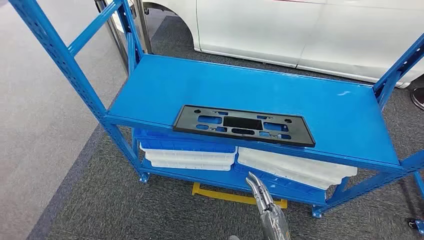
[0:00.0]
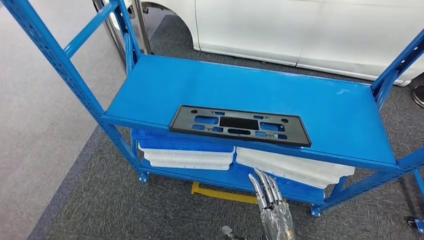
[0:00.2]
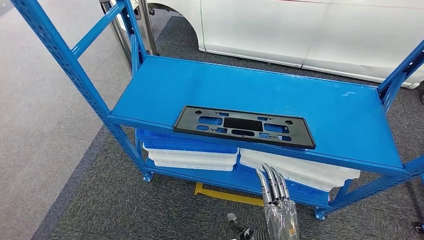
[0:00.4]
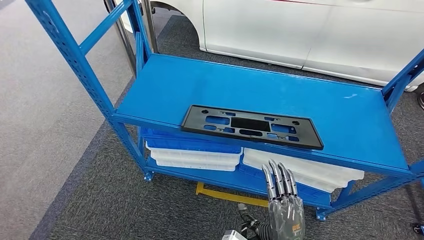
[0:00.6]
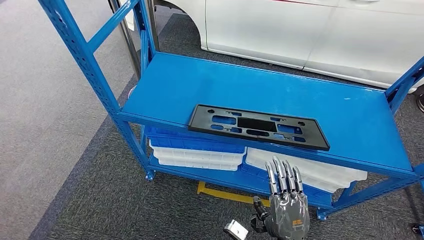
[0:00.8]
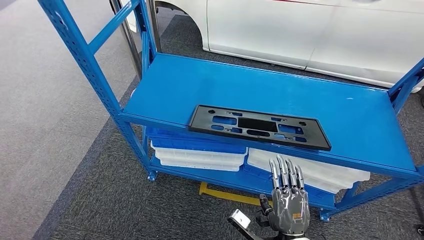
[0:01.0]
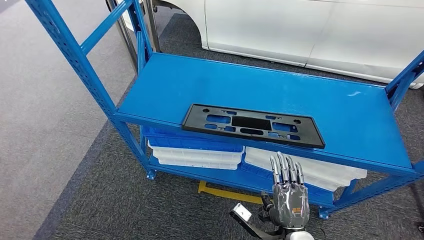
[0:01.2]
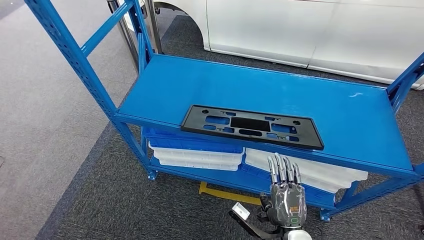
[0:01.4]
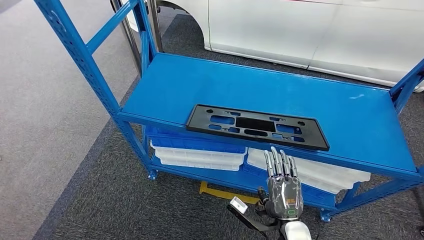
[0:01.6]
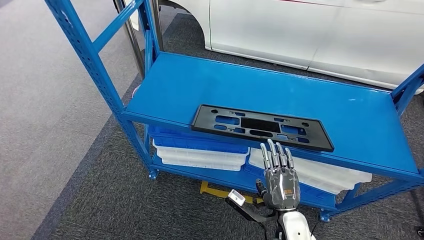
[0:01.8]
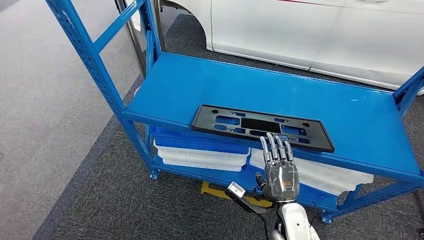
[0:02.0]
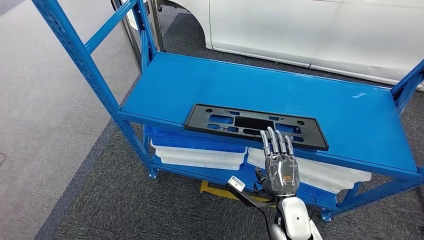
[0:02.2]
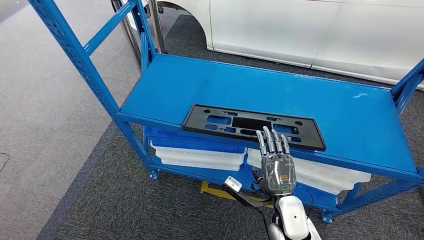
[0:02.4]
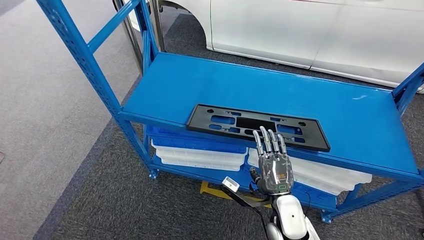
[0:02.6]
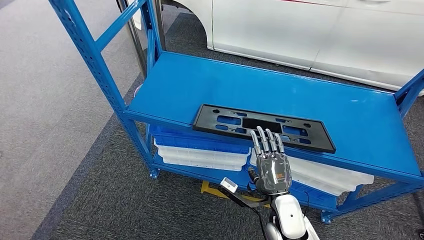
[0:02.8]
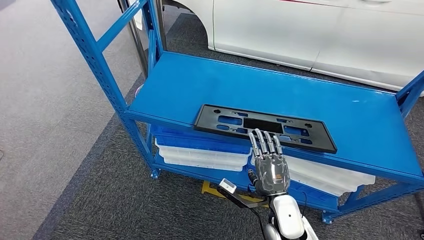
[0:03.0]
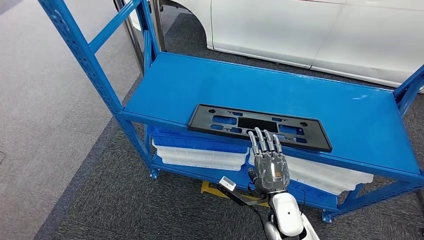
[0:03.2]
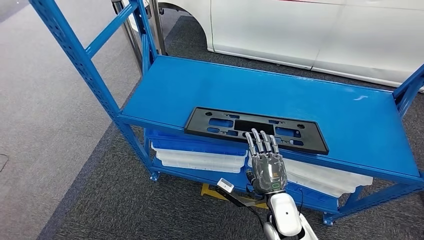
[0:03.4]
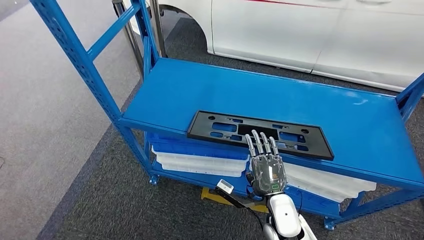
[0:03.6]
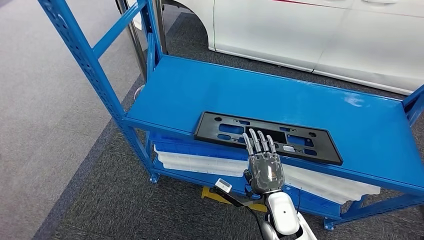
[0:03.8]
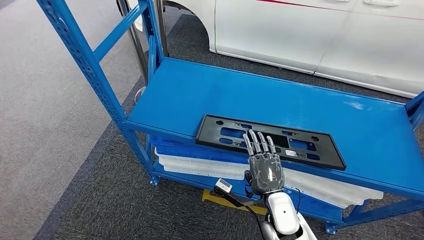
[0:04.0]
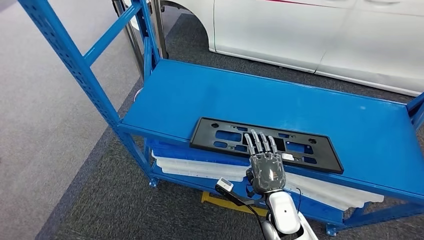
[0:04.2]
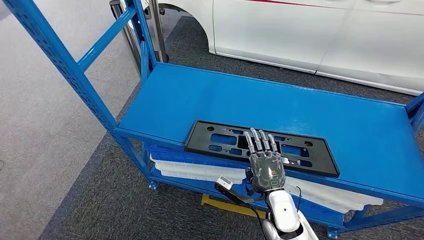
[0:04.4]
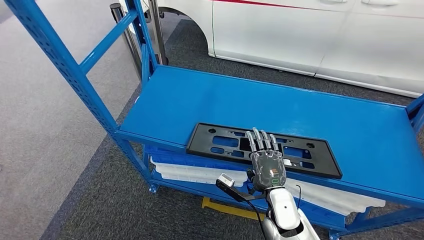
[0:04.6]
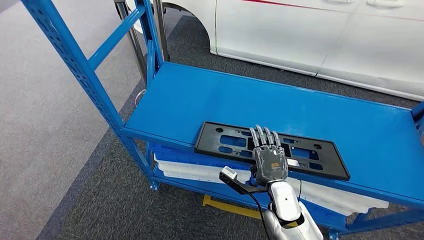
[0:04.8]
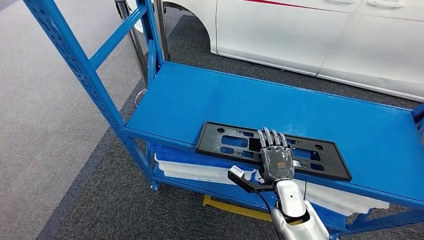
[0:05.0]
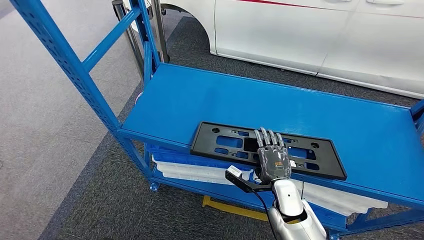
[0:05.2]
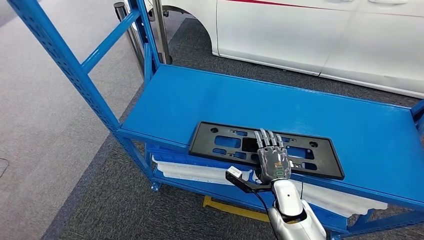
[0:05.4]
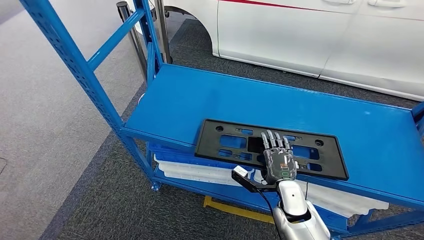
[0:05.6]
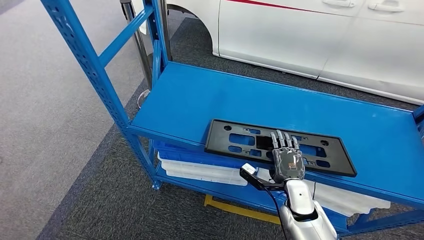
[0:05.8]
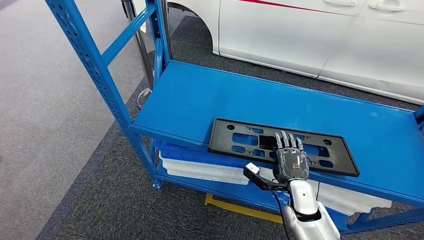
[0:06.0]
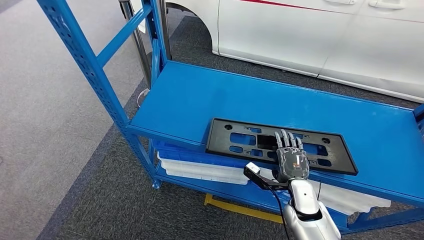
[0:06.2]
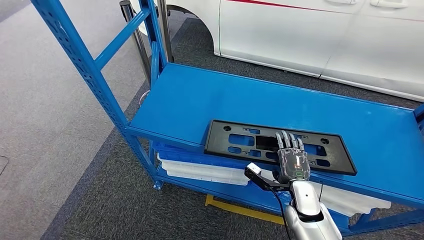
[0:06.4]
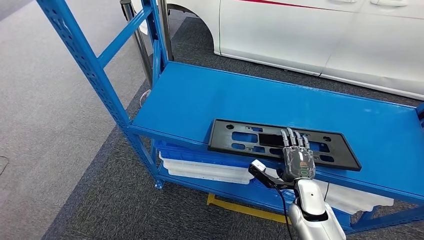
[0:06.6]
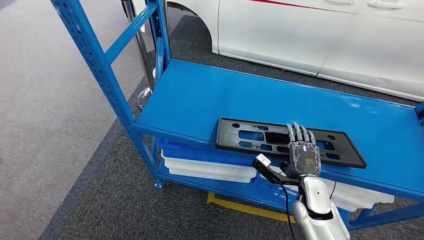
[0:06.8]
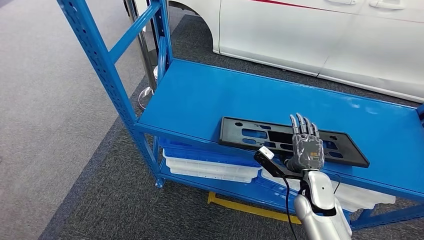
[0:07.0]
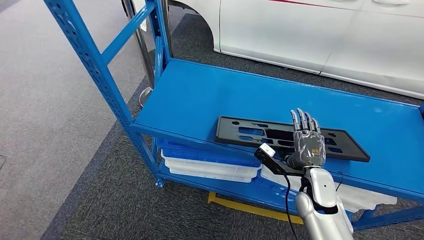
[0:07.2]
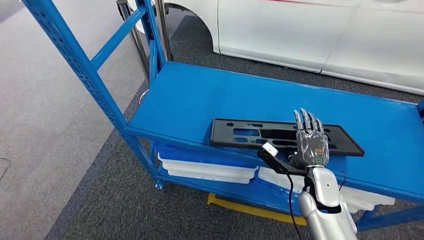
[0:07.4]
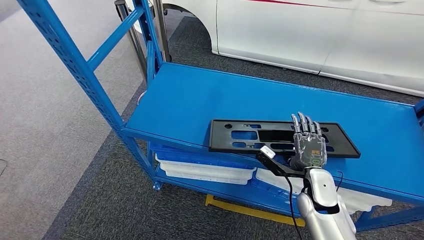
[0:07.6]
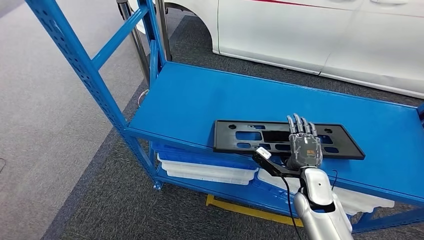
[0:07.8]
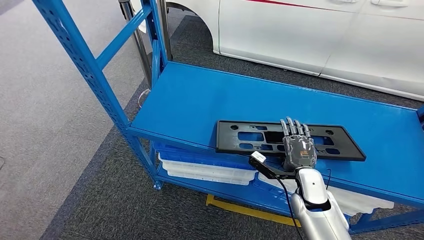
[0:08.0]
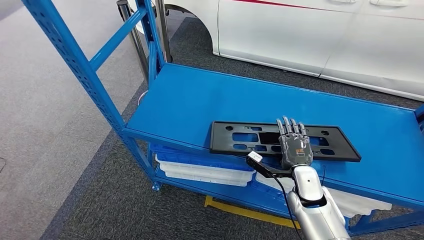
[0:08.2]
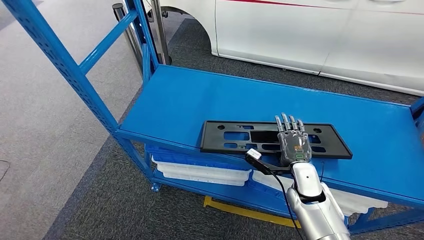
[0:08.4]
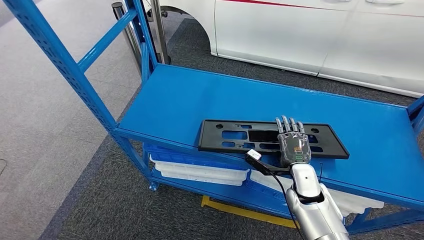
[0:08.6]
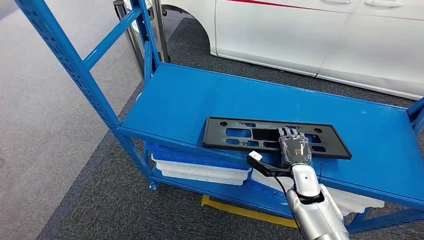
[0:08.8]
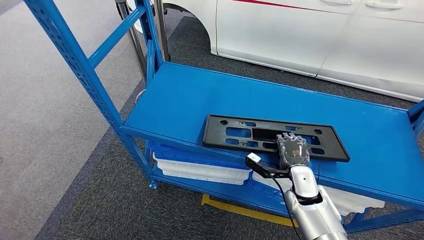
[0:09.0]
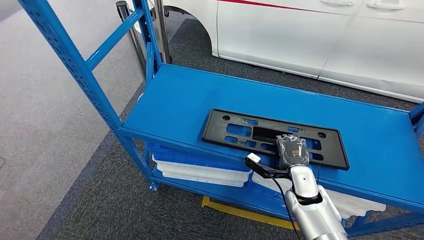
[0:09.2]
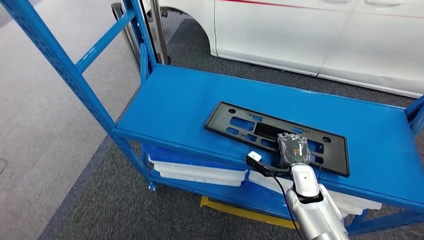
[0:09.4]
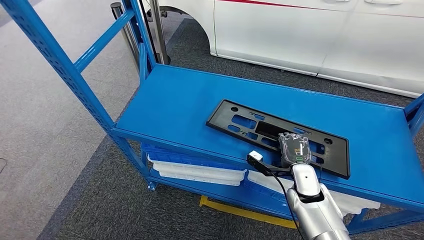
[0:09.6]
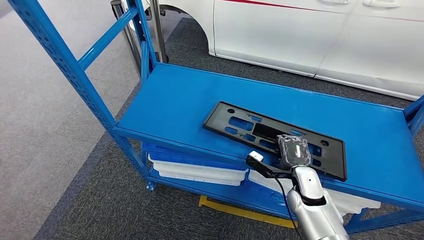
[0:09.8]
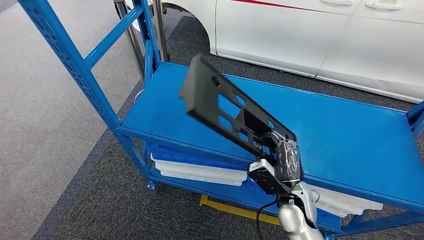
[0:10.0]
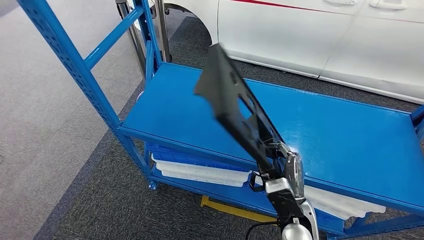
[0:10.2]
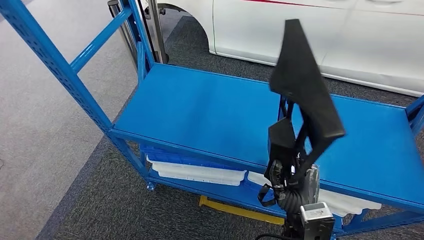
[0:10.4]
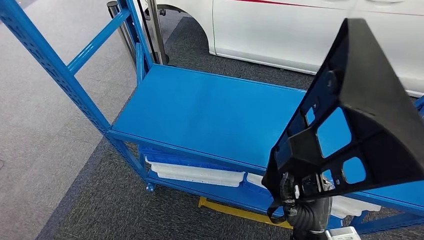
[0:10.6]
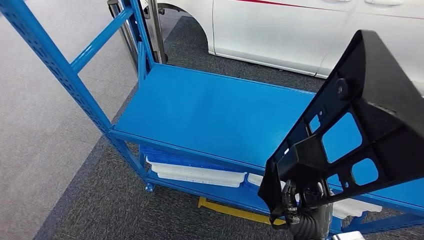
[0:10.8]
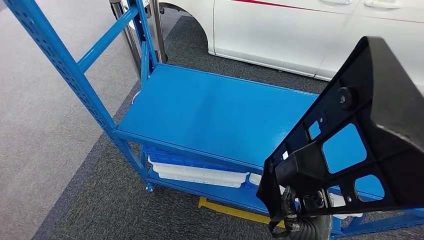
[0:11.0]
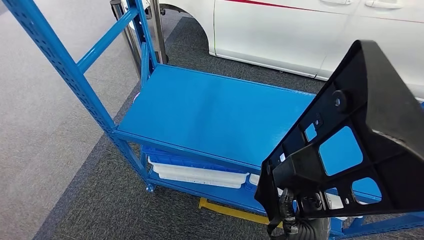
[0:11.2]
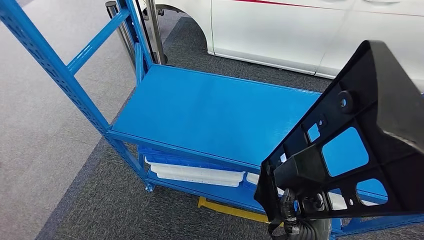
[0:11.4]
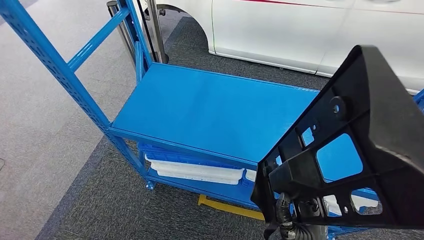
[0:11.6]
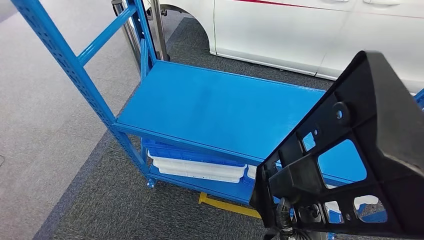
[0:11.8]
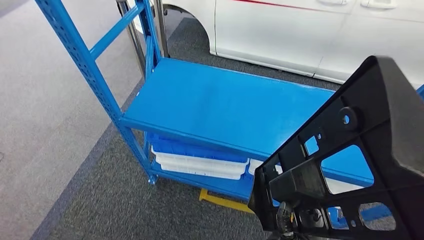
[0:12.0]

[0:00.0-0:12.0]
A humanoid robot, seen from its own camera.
0:01.6 to 0:03.0: The right hand travels forward by roughly 5 cm.
0:07.6 to 0:09.0: The hands stay close to where they were, moving slightly.

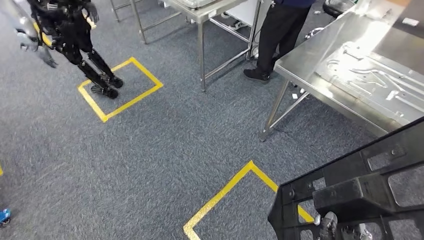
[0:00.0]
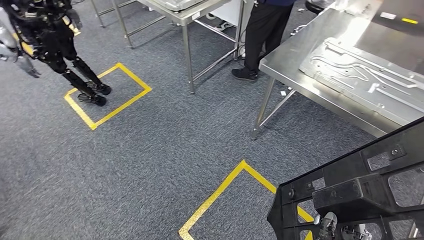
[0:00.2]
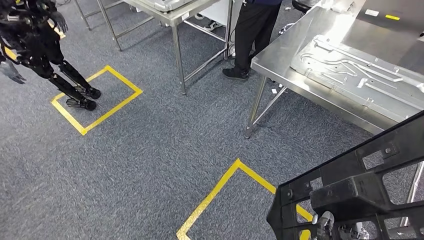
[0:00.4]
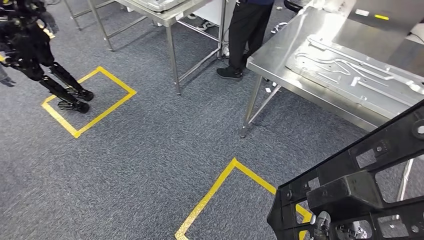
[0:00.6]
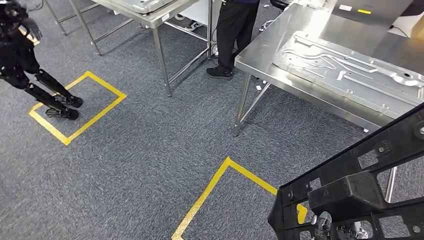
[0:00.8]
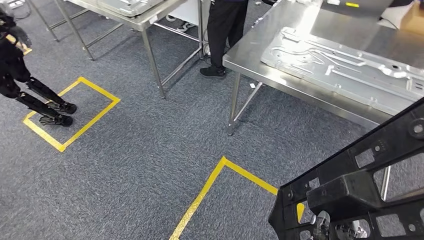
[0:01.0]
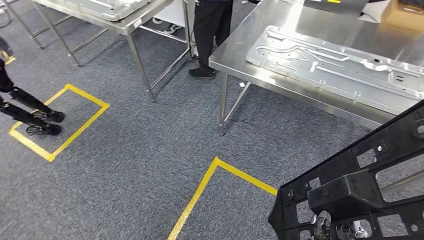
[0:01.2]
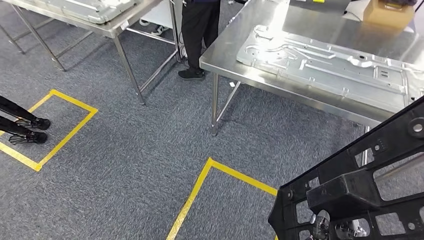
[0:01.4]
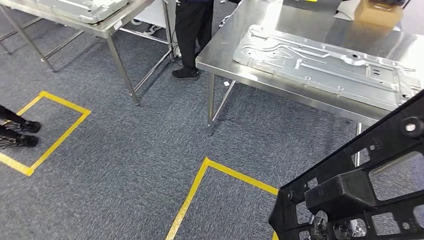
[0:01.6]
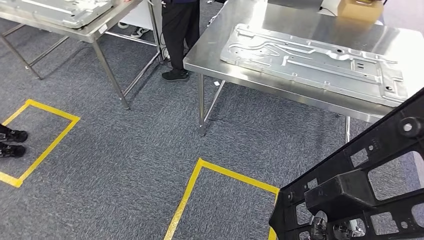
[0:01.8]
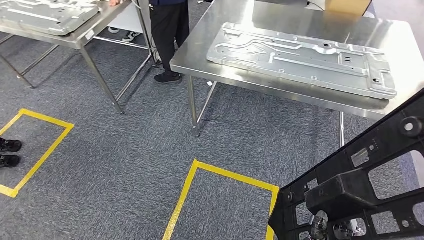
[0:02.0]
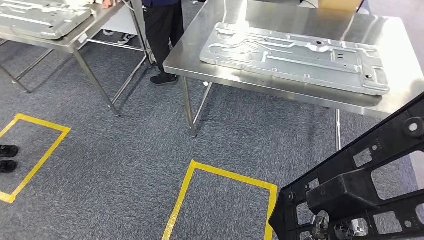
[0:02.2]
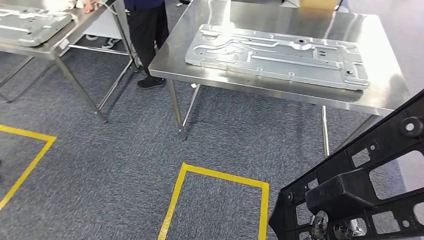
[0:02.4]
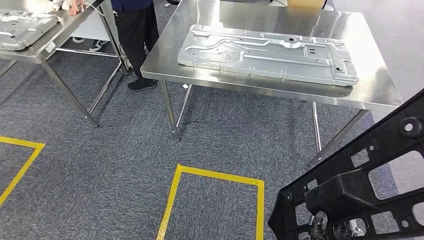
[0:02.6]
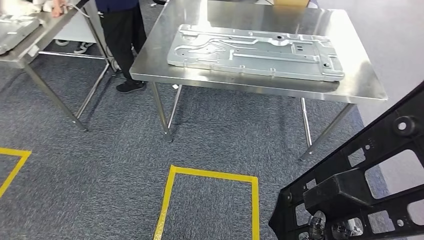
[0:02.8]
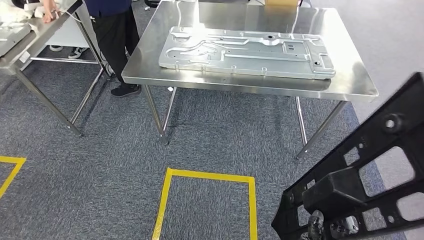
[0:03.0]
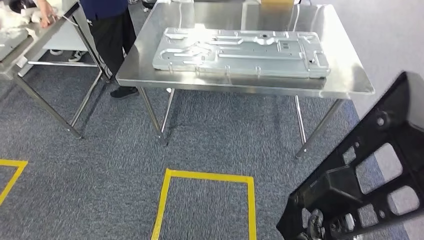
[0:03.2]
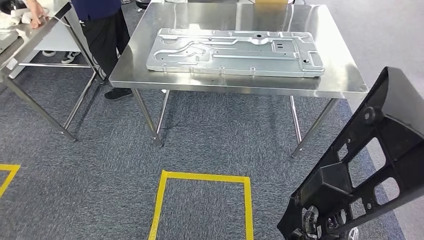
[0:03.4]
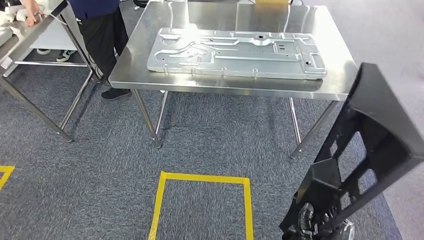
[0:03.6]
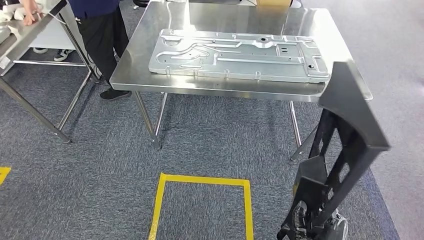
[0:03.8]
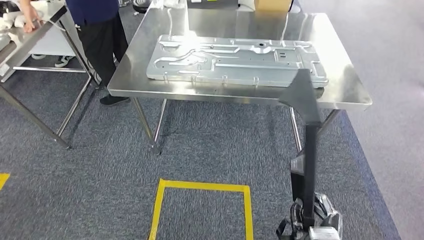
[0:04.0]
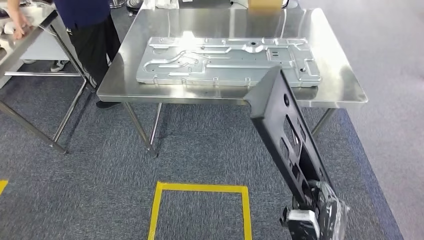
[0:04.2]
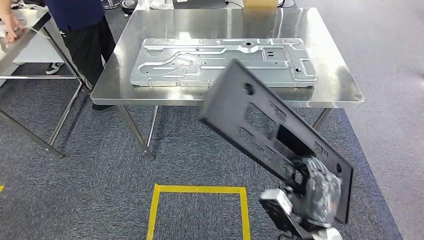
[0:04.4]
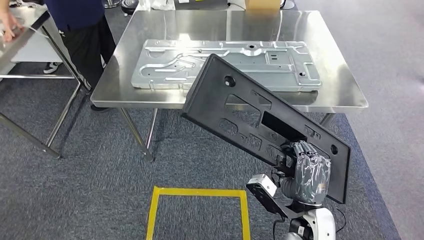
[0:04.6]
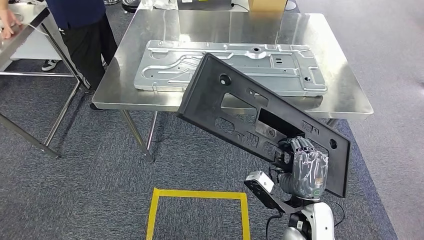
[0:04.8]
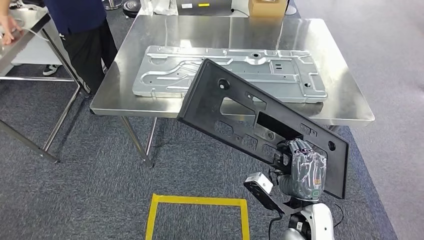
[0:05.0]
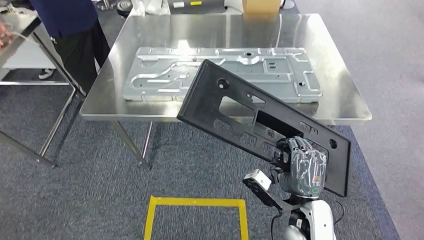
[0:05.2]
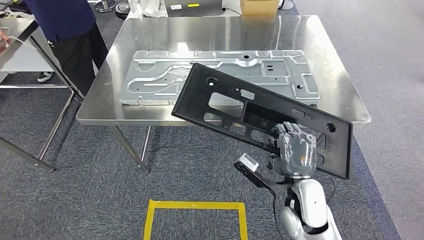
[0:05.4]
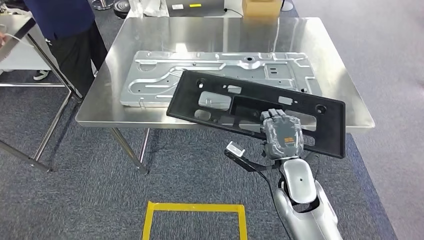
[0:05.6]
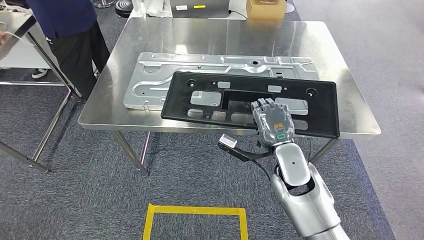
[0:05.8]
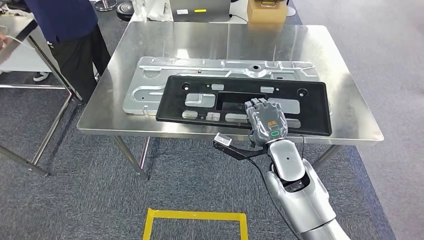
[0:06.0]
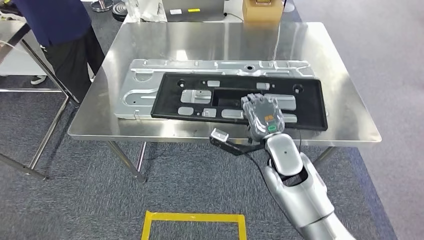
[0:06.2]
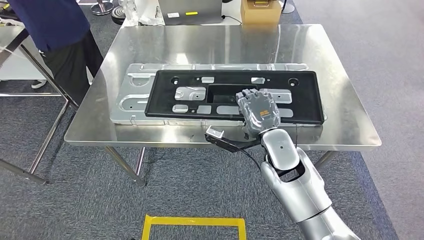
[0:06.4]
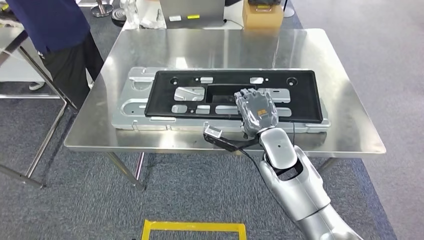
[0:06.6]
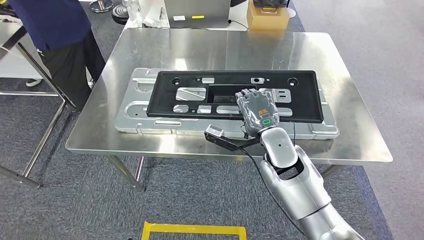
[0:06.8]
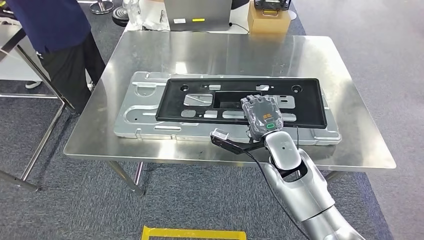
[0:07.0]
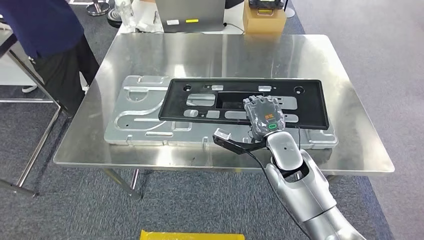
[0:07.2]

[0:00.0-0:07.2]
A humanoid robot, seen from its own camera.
Step, 0:00.0 to 0:06.2: Move the large material to the workbench.
